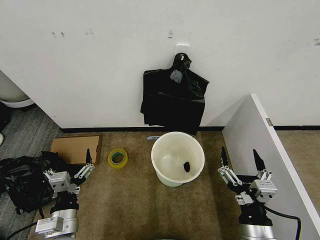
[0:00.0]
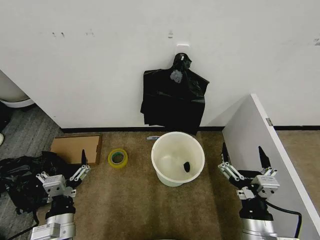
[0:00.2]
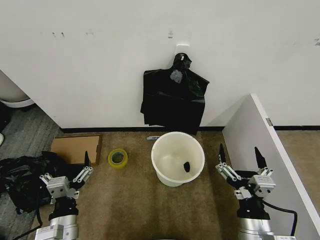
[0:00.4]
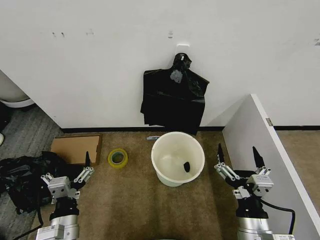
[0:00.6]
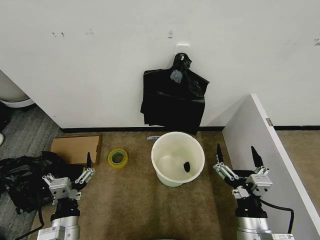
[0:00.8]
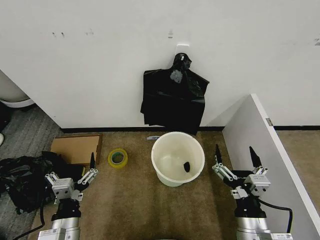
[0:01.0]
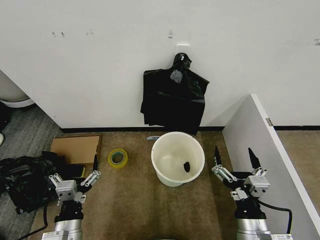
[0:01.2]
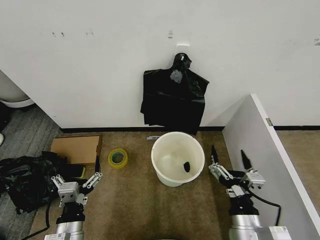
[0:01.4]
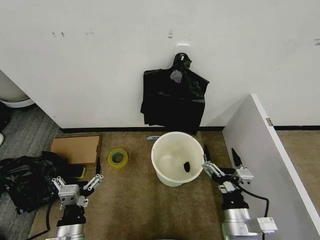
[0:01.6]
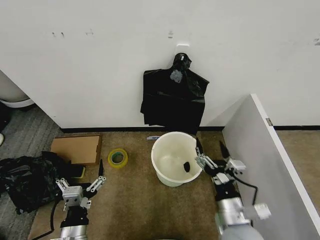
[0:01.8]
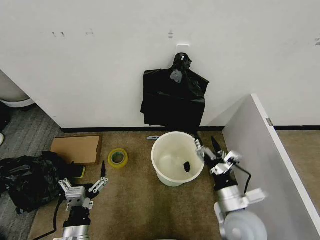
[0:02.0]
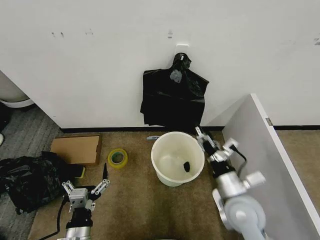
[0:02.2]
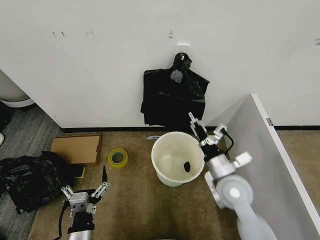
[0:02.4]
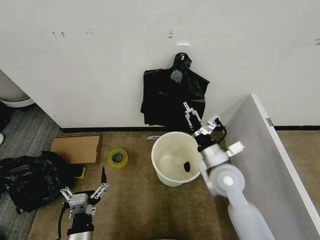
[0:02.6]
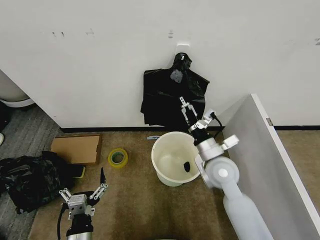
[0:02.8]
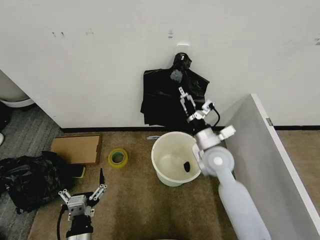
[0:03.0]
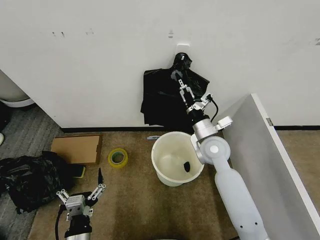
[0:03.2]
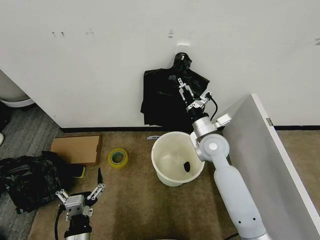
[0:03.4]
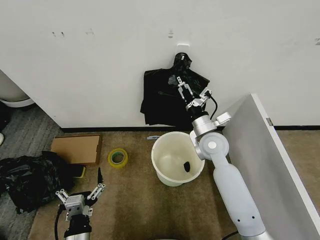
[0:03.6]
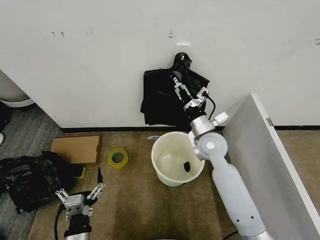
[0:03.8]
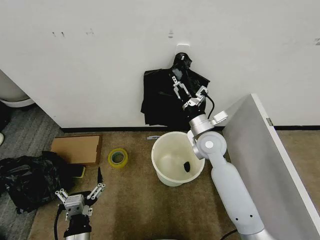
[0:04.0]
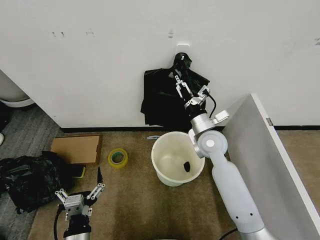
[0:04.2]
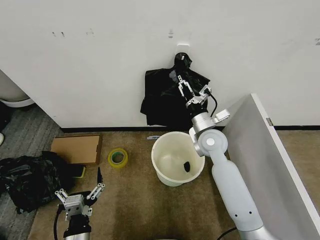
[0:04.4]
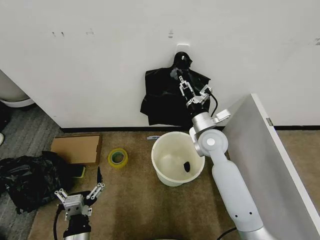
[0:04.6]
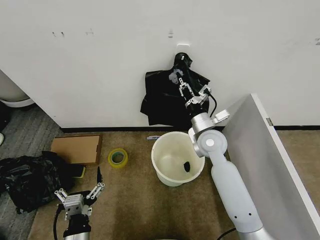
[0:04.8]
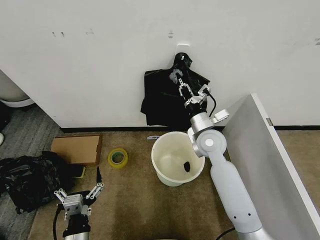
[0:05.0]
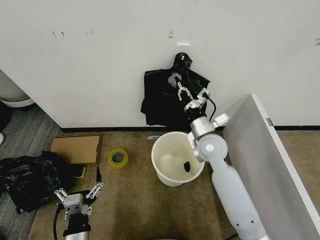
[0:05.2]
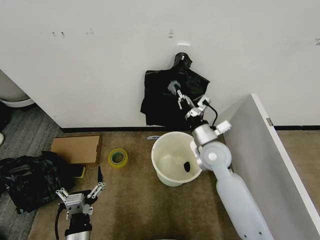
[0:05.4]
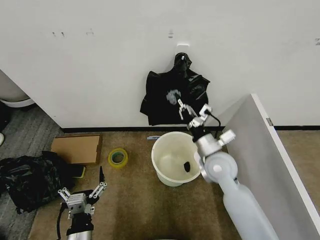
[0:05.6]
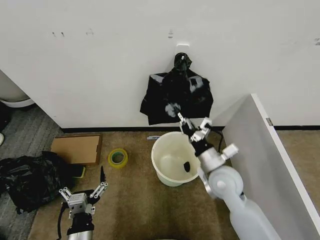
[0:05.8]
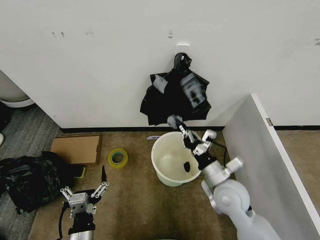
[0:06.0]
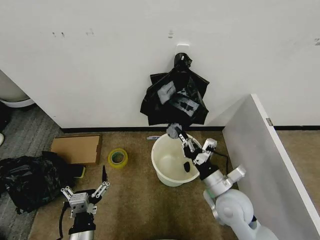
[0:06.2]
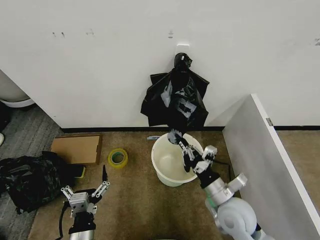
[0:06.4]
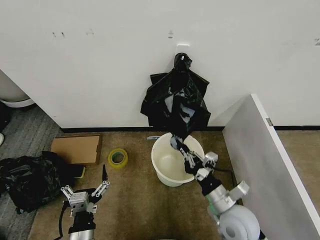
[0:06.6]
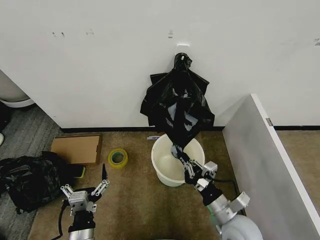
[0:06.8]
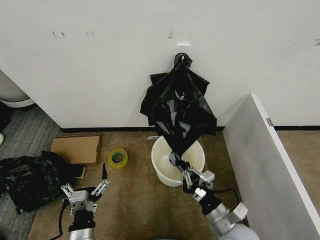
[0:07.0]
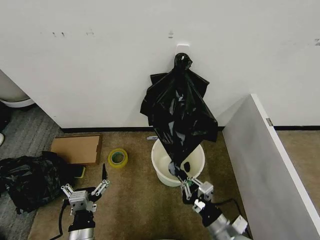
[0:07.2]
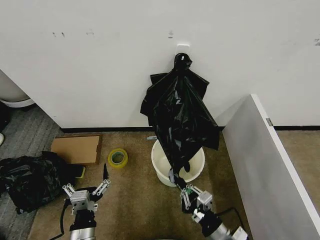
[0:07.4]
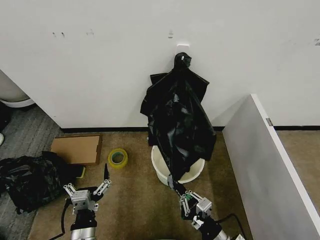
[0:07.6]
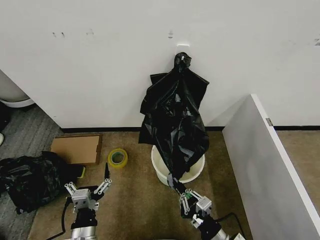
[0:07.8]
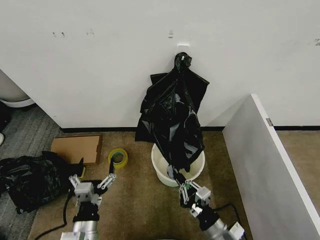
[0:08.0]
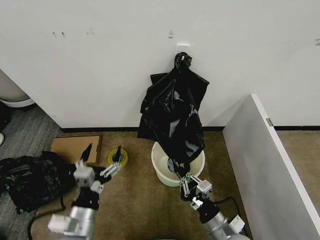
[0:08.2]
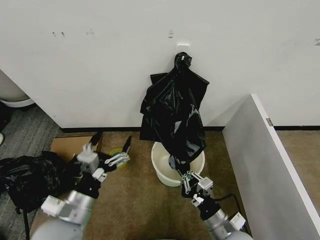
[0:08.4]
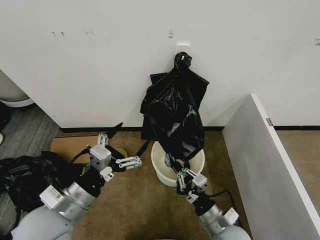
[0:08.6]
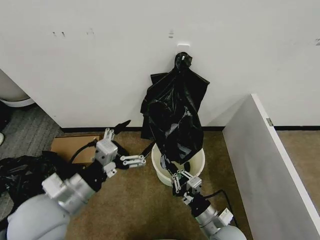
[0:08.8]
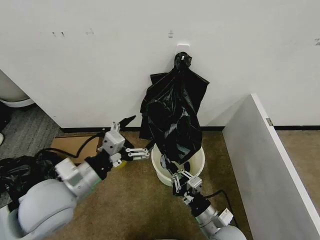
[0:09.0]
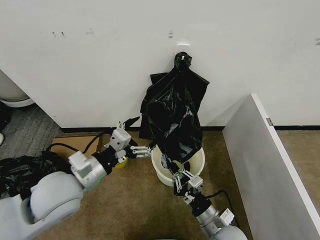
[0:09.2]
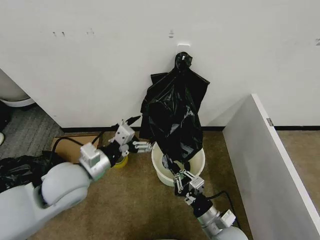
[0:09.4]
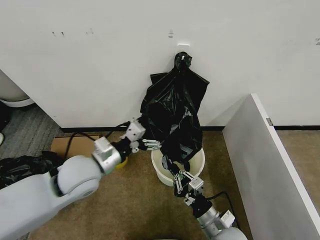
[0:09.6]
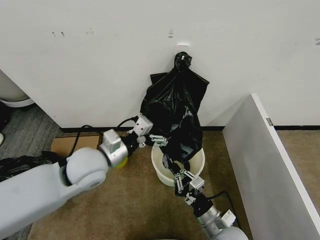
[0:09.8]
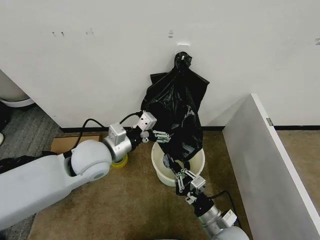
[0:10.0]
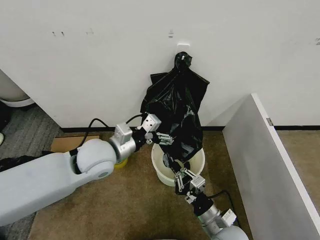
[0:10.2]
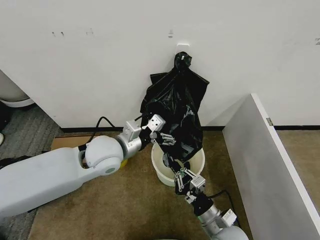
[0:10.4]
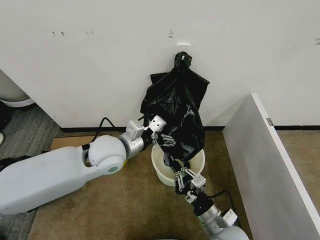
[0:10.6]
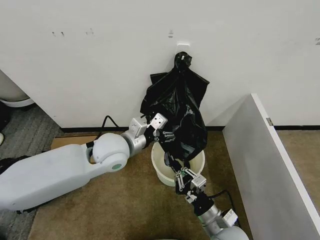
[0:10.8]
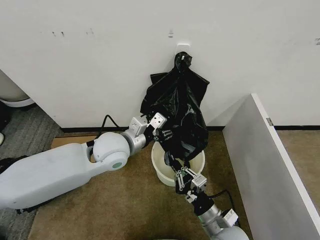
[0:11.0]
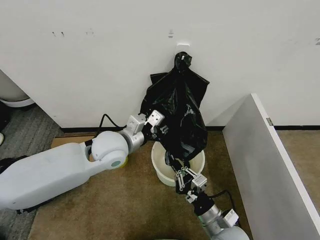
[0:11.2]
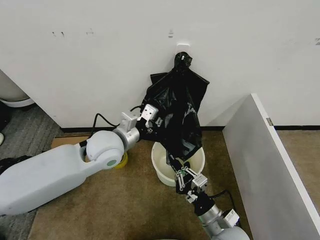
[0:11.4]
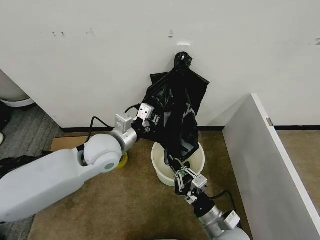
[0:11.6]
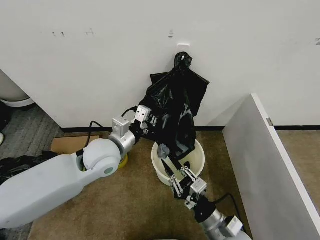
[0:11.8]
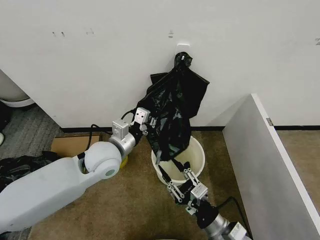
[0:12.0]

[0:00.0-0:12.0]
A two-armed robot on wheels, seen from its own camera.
Task of the whole recording: Place the garbage bag over the trash bin.
0:01.6 to 0:03.0: The right gripper travels forward by roughly 20 cm.
0:03.0 to 0:04.4: The right gripper shifts about 5 cm forward, and closes.
0:04.4 to 0:06.0: The right gripper heads backward and downward, covering some 15 cm, and closes.
0:06.0 to 0:07.6: The right gripper moves backward and downward, roughly 20 cm.
0:07.6 to 0:09.0: The left gripper heads upward and forward, covering approximately 20 cm. Meanwhile the right gripper moves forward, some 5 cm.
0:09.0 to 0:10.4: The left gripper shifts about 15 cm forward and to the right.
0:10.4 to 0:12.0: The right gripper opens its fingers. Meanwhile the left gripper closes up.

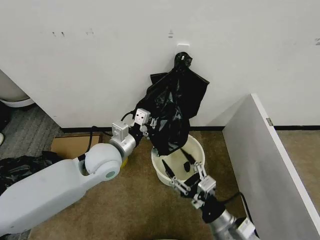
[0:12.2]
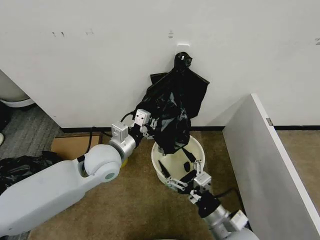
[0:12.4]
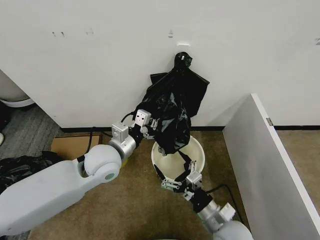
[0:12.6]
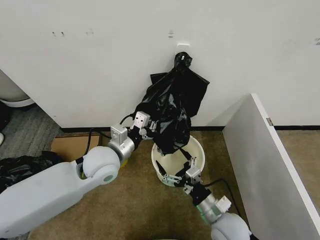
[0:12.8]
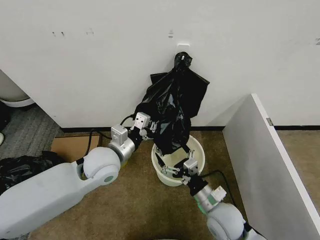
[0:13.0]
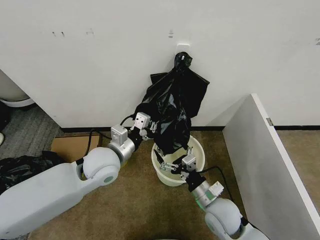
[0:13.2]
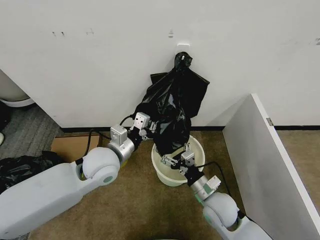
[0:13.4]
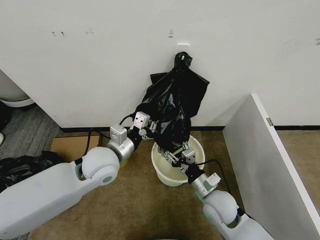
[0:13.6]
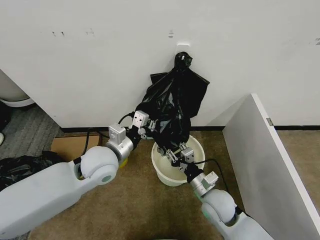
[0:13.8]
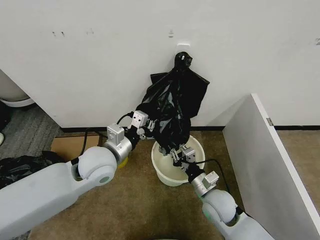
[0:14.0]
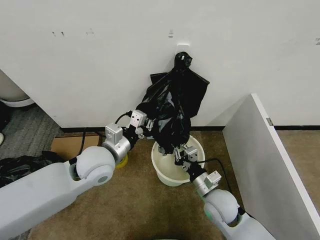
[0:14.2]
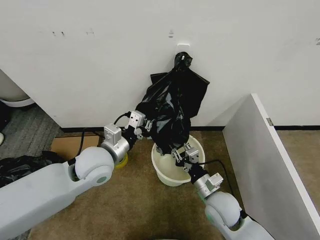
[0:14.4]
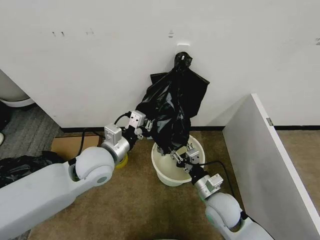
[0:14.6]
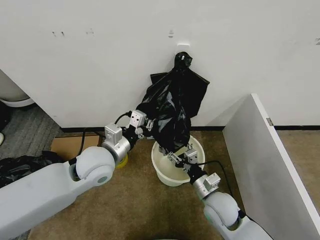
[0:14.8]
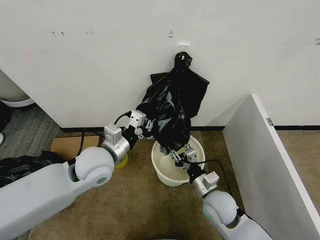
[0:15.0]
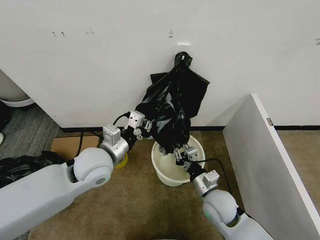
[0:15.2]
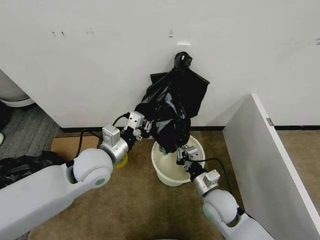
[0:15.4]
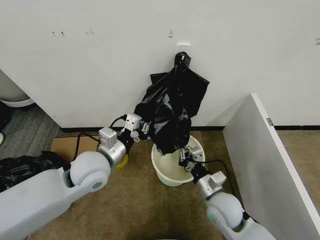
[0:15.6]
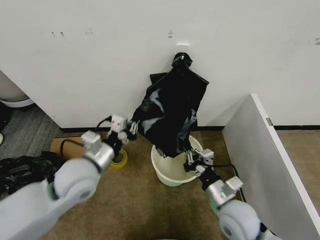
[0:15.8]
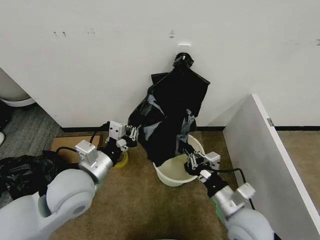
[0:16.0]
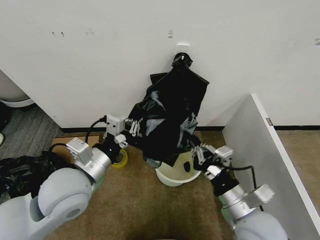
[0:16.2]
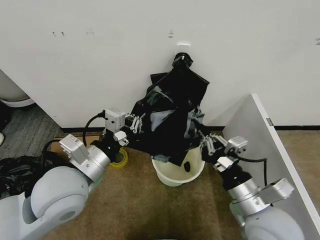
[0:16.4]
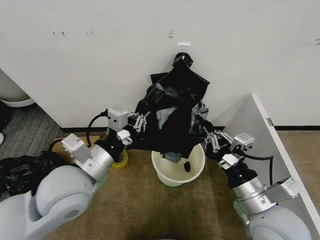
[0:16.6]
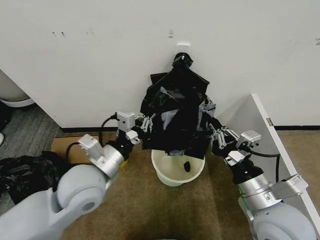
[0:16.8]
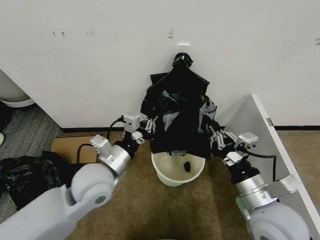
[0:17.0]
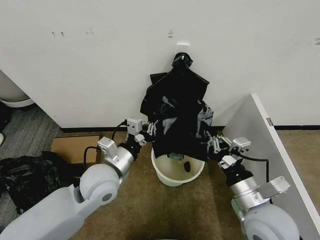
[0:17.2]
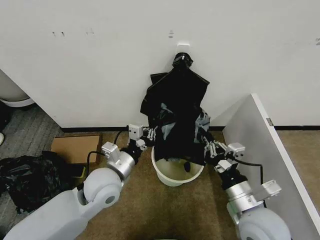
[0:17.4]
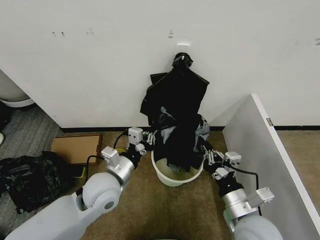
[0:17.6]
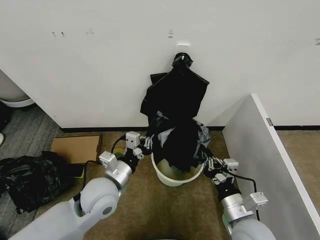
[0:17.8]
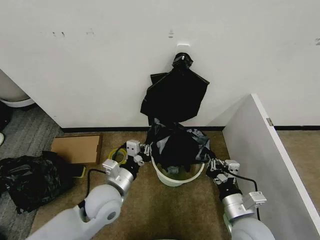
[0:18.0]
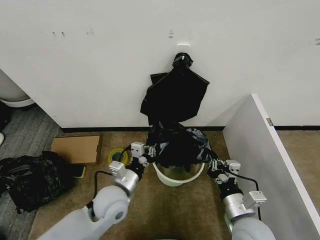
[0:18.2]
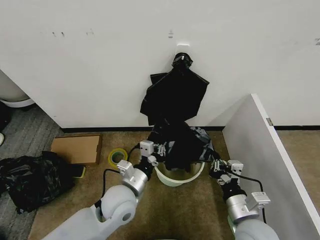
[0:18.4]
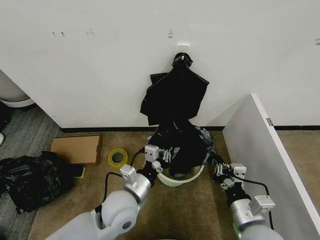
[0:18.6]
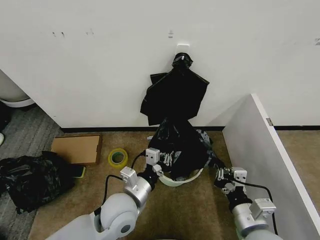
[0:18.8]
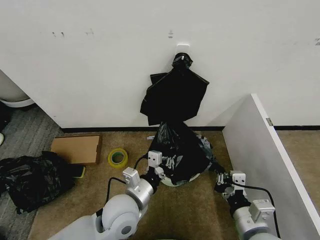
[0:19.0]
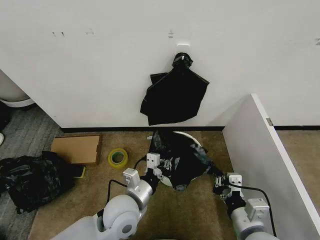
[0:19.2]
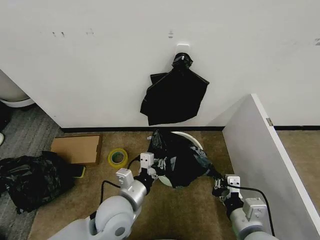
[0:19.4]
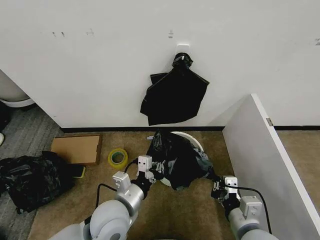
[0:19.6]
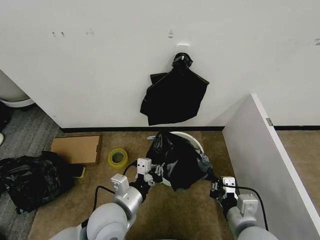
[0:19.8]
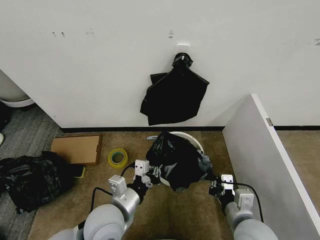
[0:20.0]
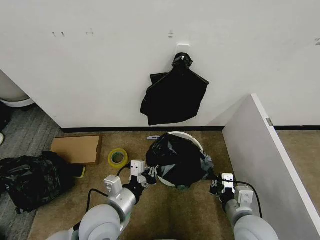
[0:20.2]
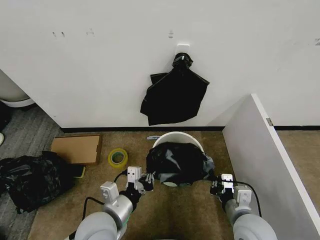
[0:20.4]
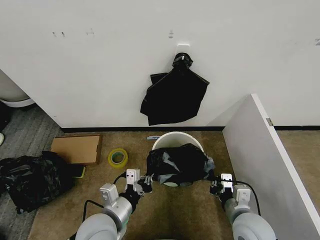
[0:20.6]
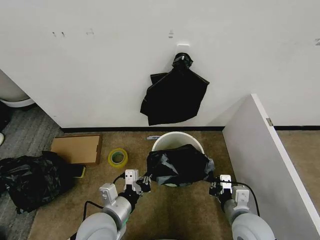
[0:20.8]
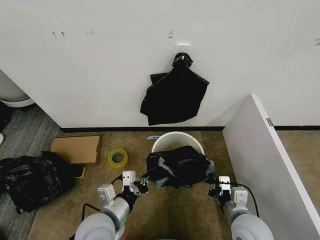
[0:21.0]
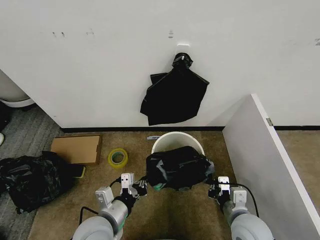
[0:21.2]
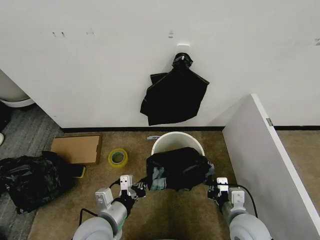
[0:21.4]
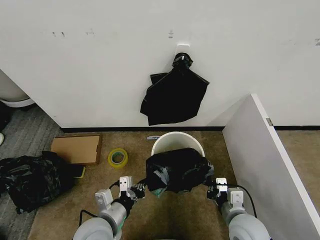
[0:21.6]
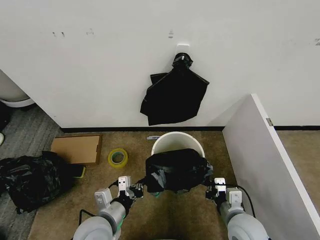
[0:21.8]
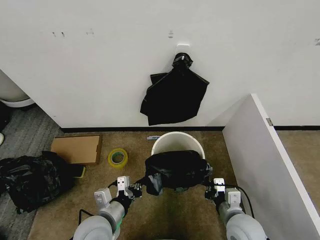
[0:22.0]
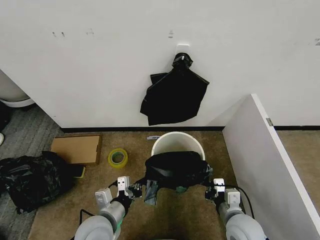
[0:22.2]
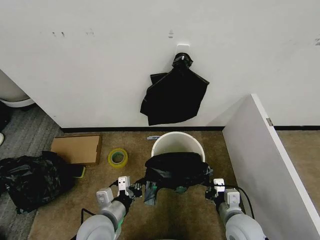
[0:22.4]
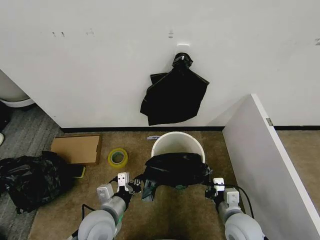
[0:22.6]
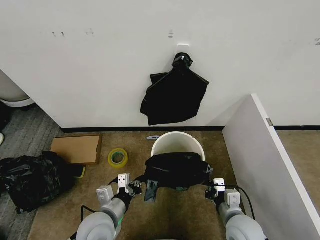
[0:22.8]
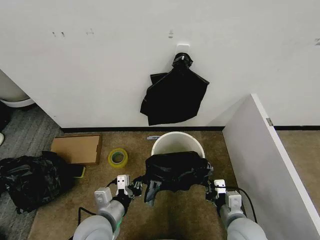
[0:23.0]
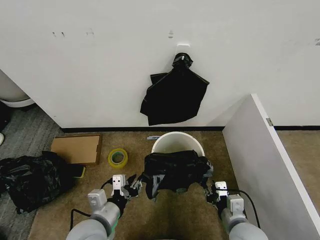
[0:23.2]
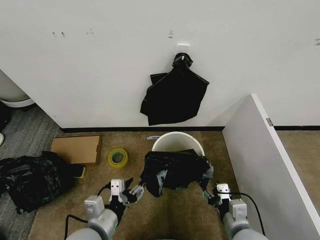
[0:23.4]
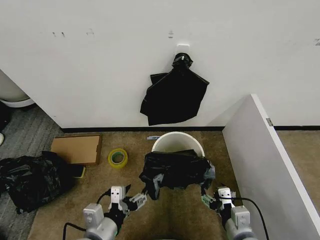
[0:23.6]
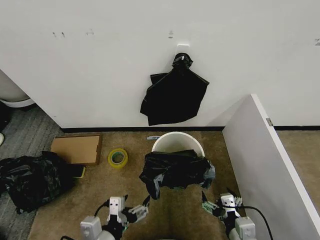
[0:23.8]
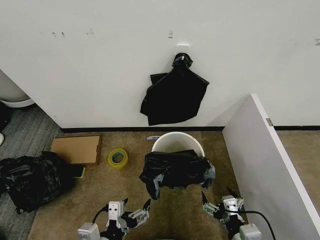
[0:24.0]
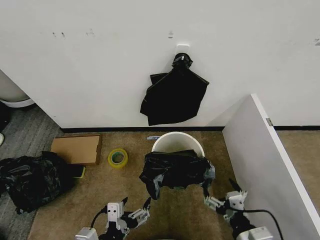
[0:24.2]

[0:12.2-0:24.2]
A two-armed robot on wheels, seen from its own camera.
Task of the whole recording: Place the garbage bag over the trash bin.
0:12.2 to 0:13.8: The right gripper travels forward by some 15 cm.
0:13.8 to 0:15.2: The grippers make only small movements.
0:15.2 to 0:16.6: The right gripper heads upward and backward, covering some 20 cm; the left gripper moves backward, roughly 10 cm.
0:16.6 to 0:18.2: The grippers both shift downward by about 15 cm.
0:18.2 to 0:19.8: The left gripper moves backward, some 5 cm.
0:19.8 to 0:21.2: The right gripper shifts by about 5 cm.
0:21.2 to 0:22.6: There are only small adjustments of the grippers.
0:22.6 to 0:24.2: Both grippers travel together backward, about 10 cm. The left gripper opens its fingers. The right gripper opens.
